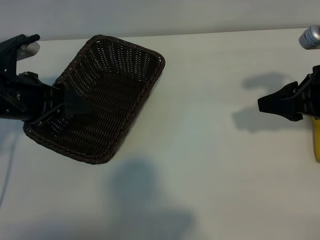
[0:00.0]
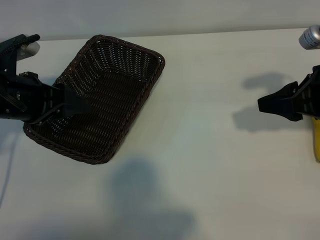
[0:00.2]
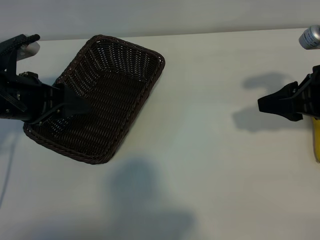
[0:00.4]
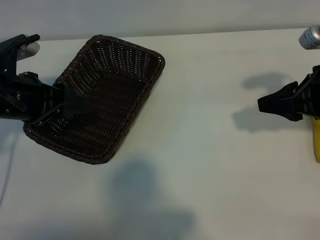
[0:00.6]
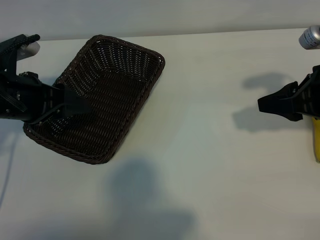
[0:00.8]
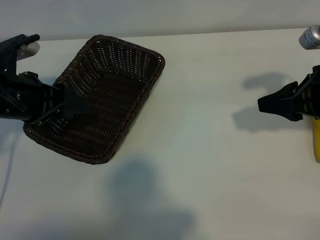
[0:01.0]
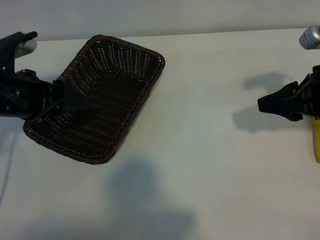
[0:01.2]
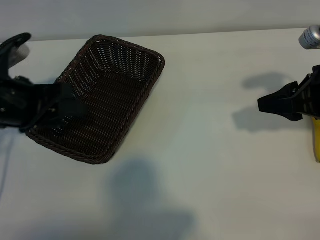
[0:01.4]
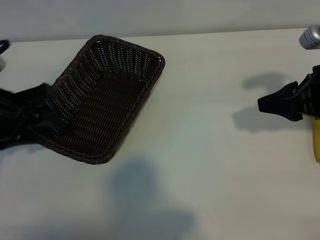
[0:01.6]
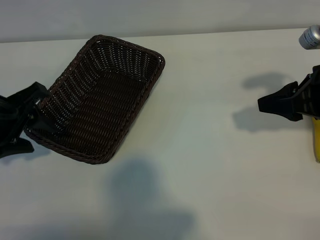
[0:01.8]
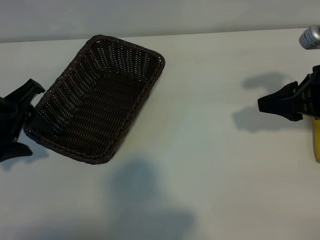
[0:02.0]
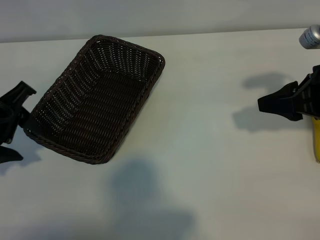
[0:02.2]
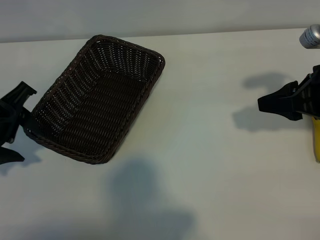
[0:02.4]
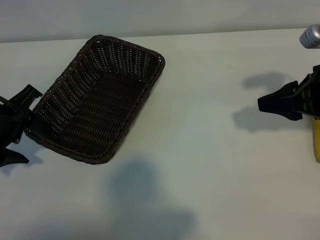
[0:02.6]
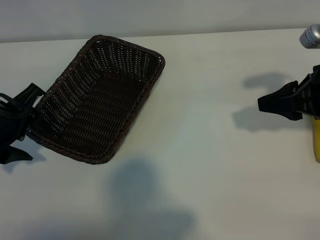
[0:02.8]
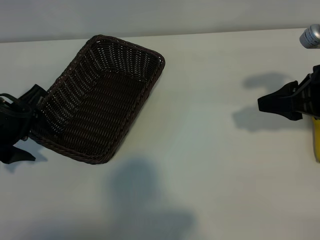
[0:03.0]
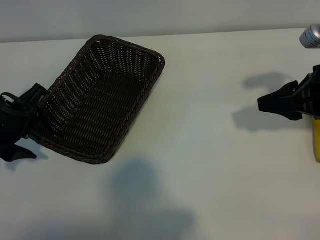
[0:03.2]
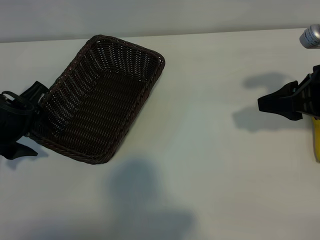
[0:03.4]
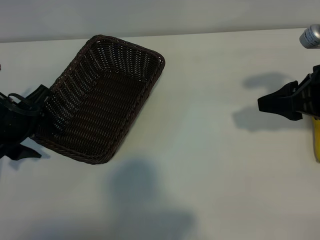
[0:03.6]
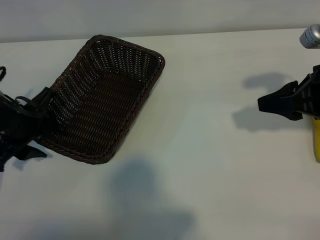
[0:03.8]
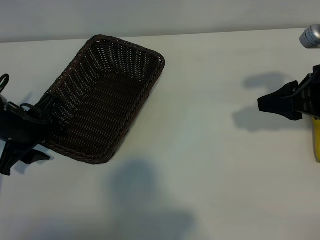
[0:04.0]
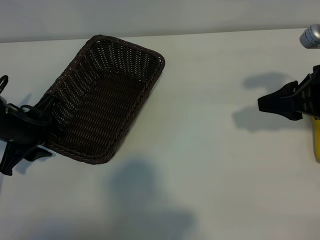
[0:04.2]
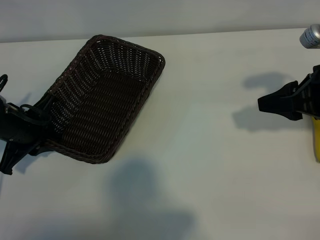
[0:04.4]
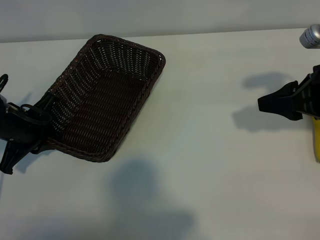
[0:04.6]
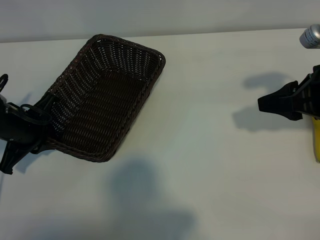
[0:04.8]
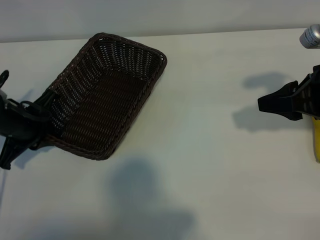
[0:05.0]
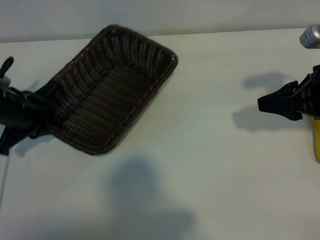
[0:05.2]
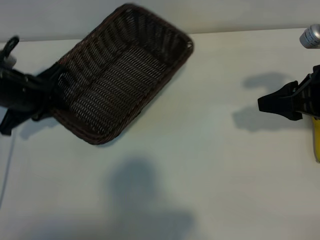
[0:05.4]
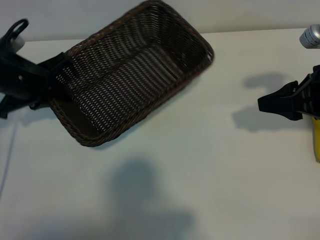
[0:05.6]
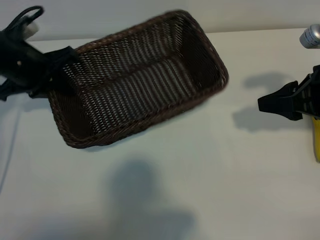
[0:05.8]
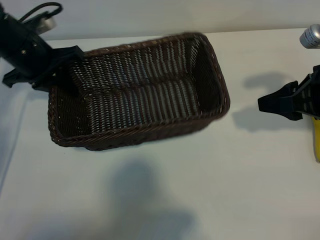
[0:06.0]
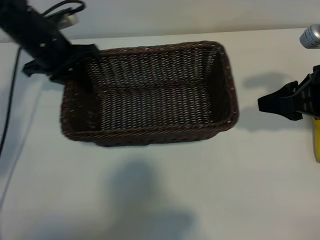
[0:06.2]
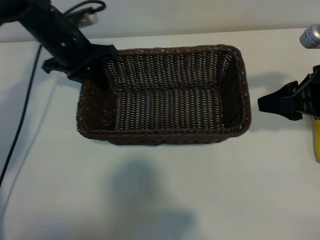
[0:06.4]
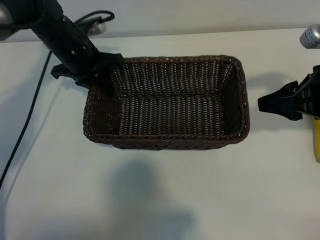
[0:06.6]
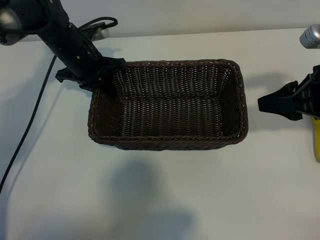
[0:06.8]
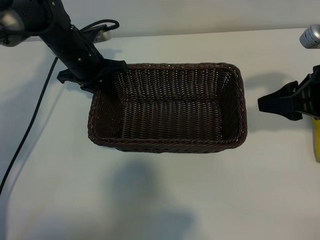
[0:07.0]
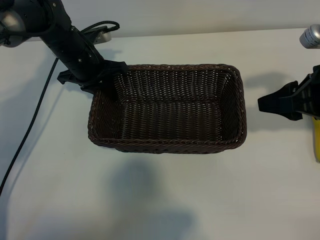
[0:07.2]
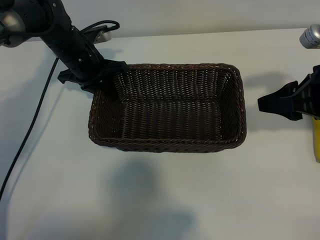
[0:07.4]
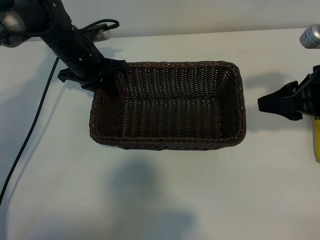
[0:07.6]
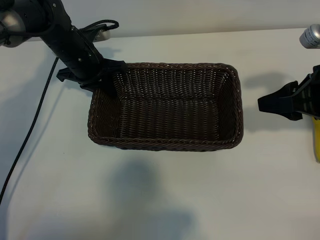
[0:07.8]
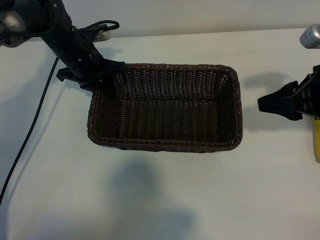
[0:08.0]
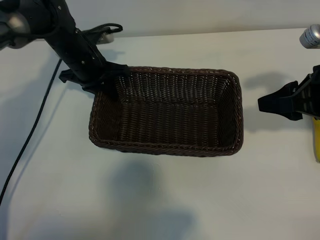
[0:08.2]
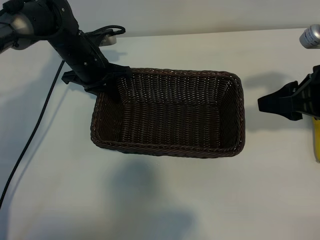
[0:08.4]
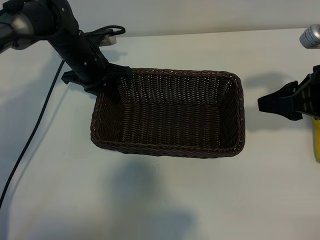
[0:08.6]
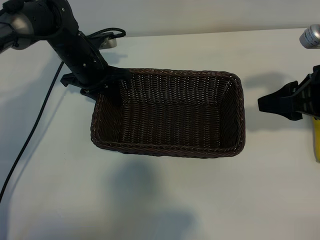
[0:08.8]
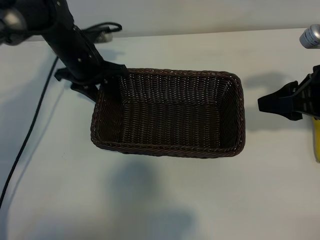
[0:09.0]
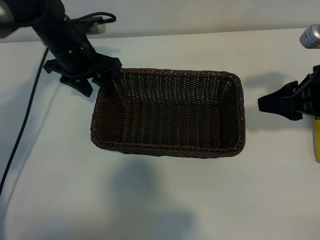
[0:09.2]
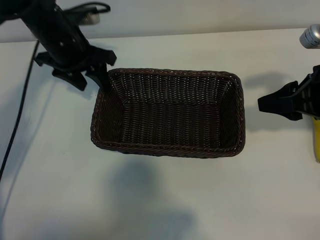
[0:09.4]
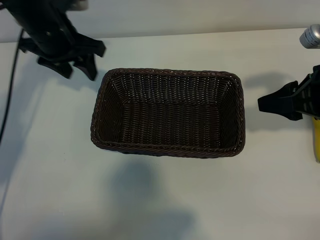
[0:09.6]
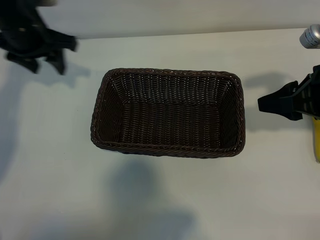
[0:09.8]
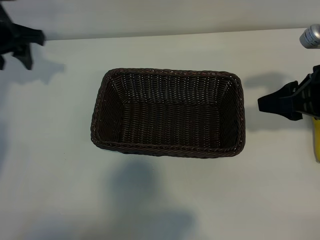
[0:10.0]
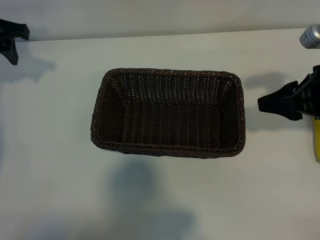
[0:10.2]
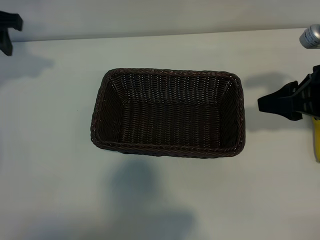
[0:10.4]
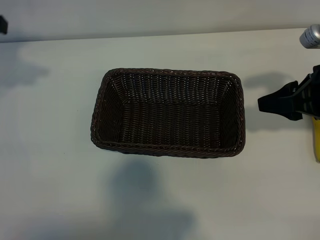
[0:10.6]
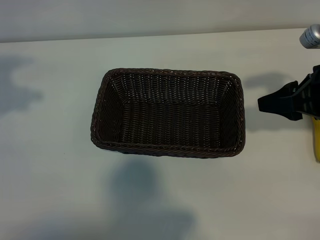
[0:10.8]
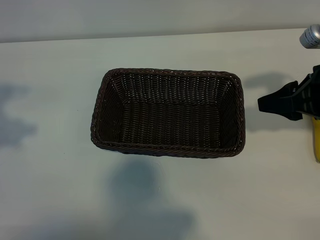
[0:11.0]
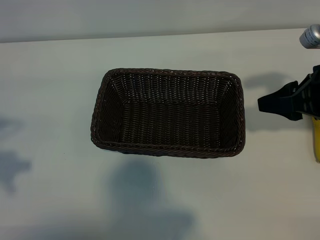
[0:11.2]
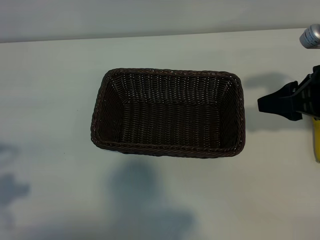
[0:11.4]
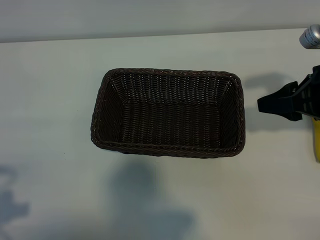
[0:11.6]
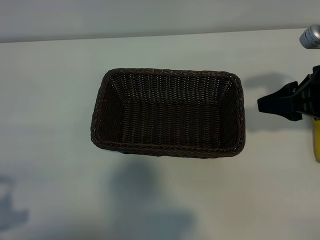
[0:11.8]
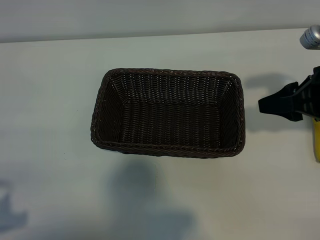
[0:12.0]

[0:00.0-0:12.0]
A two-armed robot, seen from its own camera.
Task of the whole recording: pick up the banana and put it into the basket.
Step, 0:01.2 to 0:04.6: Grasp the basket with the left gripper.
Step, 0:04.8 to 0:09.4: Place the basket in the center of the table with the left gripper.

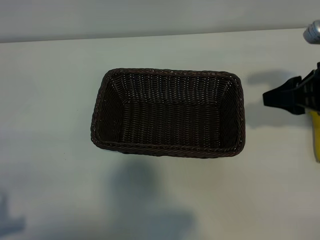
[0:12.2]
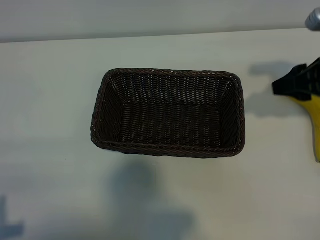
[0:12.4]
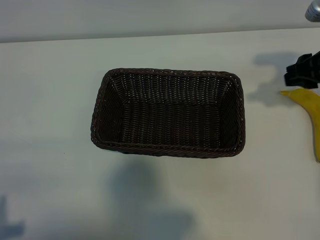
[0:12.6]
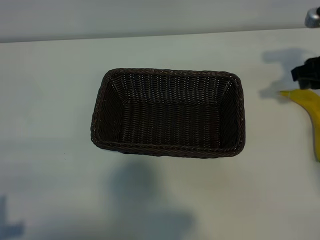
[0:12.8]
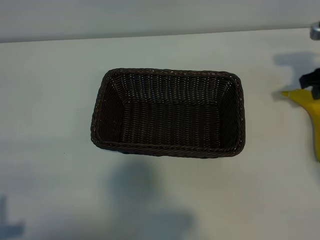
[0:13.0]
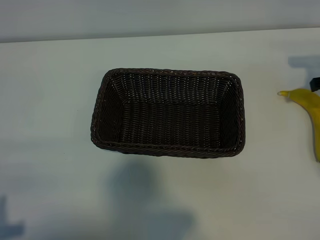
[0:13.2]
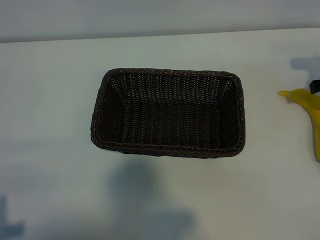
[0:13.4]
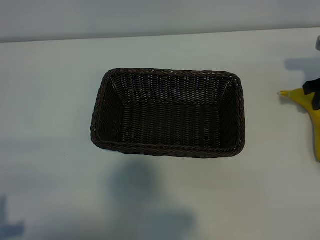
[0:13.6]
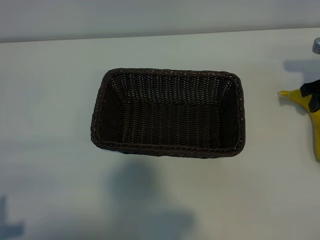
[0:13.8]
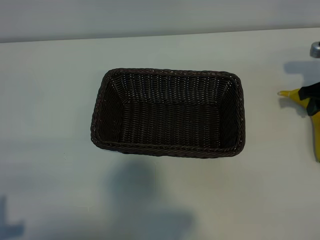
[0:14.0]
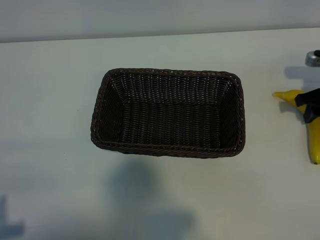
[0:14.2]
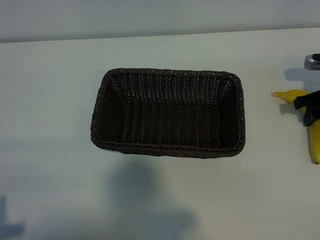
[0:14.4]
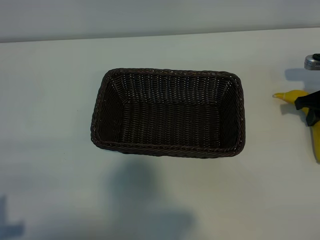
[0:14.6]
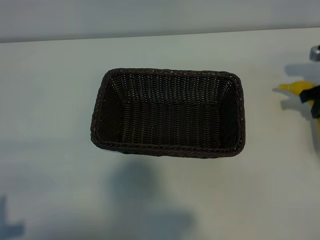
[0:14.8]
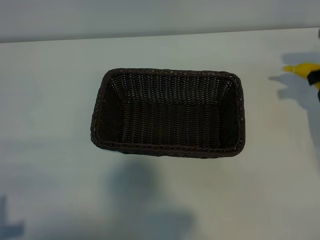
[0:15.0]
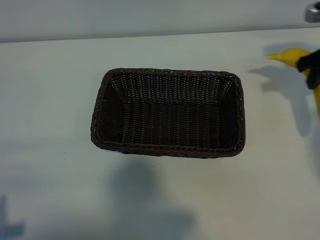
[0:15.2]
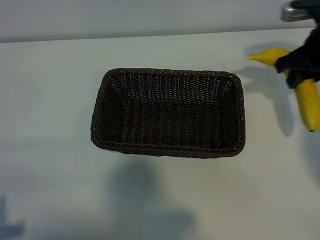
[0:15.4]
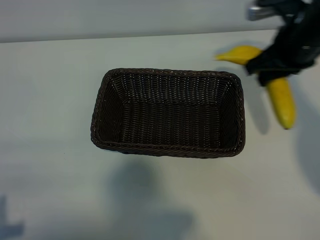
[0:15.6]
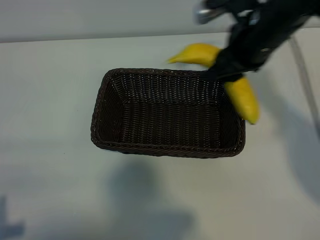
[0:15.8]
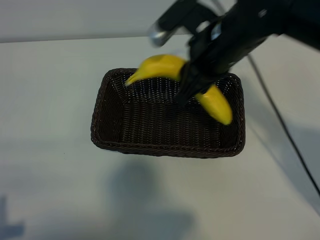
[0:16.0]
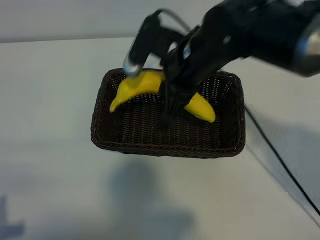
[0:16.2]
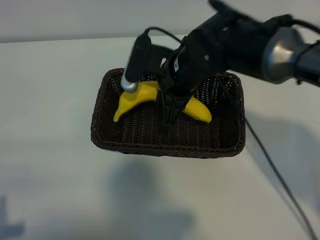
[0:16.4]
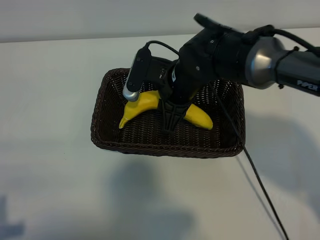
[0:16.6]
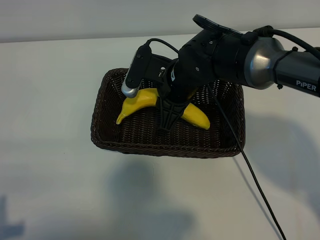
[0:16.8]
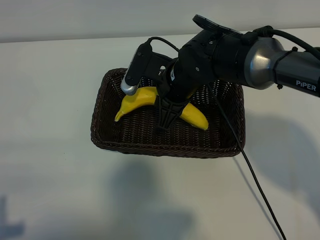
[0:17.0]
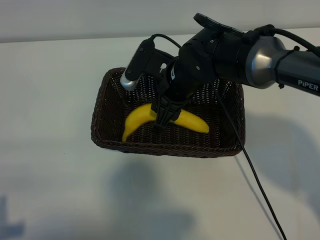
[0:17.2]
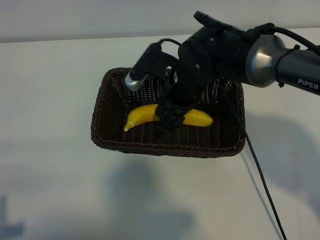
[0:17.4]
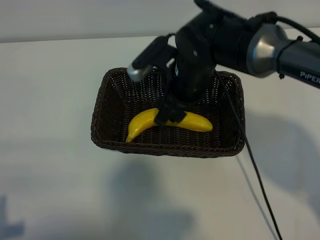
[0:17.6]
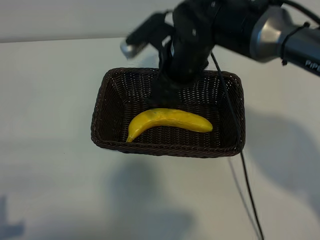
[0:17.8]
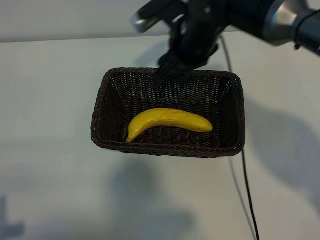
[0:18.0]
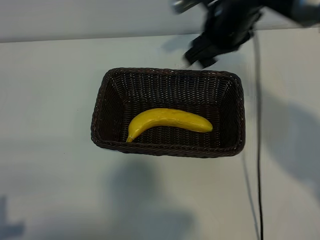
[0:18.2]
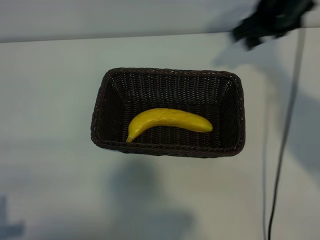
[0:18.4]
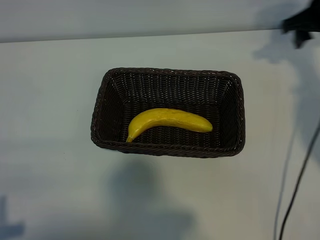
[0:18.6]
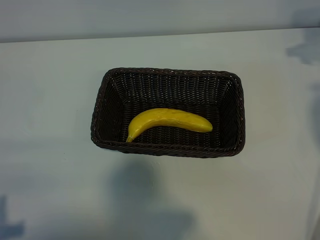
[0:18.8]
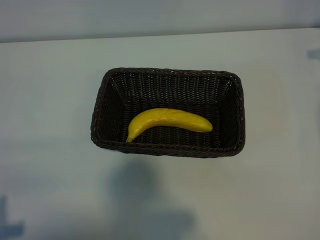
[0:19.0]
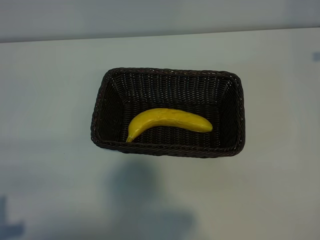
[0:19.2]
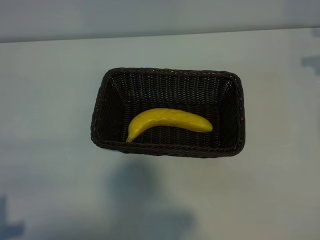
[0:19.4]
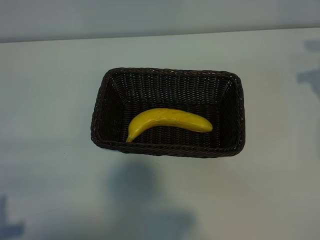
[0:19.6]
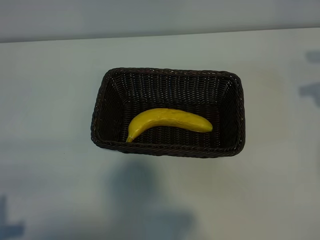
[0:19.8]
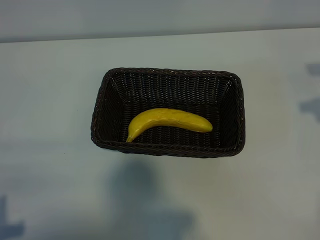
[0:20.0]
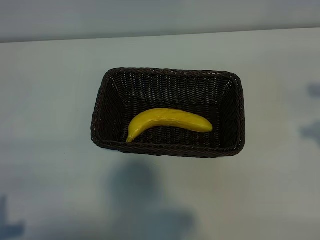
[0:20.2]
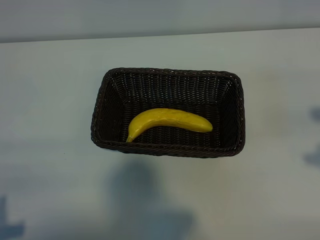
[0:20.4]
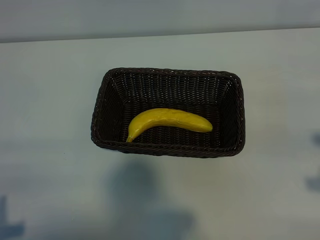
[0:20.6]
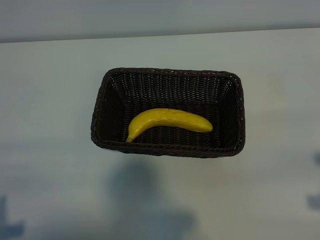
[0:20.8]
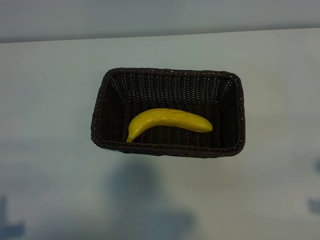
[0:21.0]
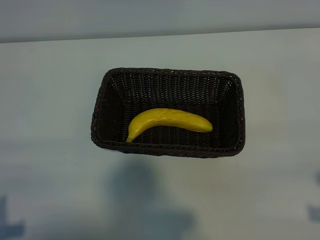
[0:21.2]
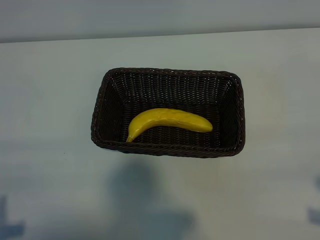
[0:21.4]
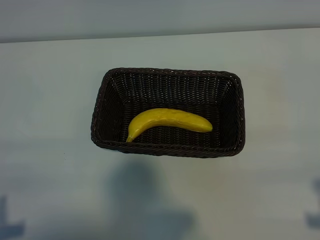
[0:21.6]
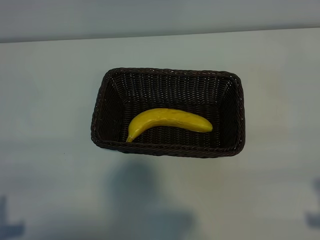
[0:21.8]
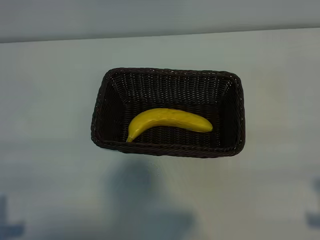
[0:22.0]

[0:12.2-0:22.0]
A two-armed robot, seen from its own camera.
Task of the whole recording: pick up the banana and put it into the basket.
Step, 0:12.2 to 0:14.4: Grasp the banana with right gripper.
Step, 0:14.8 to 0:17.6: Place the banana in the basket with right gripper.
